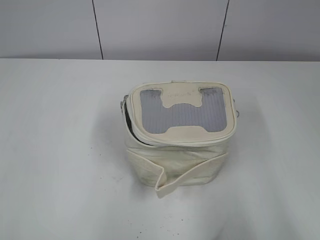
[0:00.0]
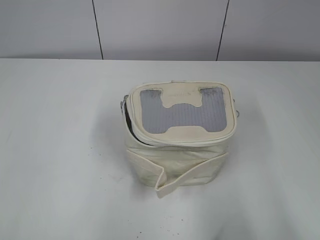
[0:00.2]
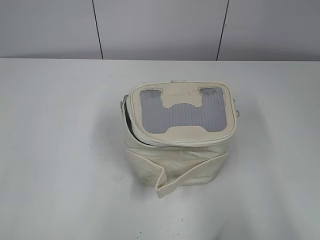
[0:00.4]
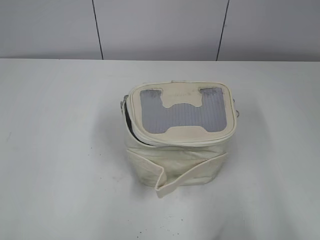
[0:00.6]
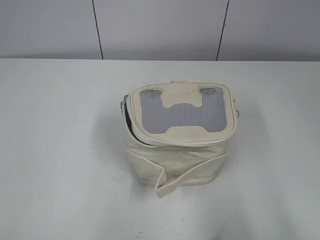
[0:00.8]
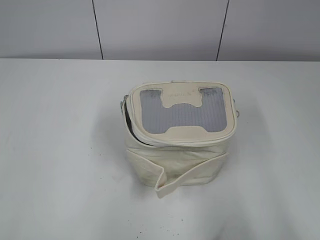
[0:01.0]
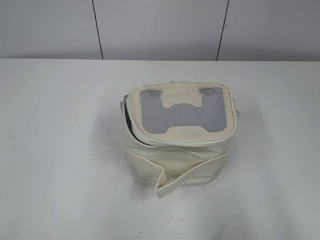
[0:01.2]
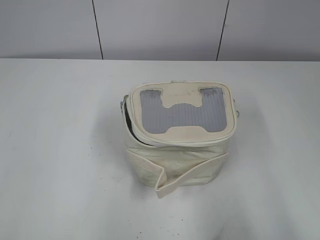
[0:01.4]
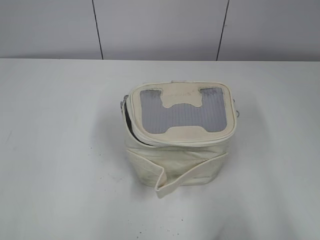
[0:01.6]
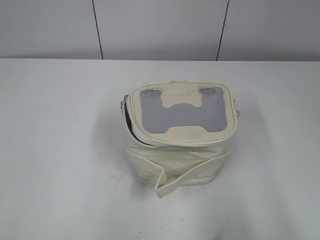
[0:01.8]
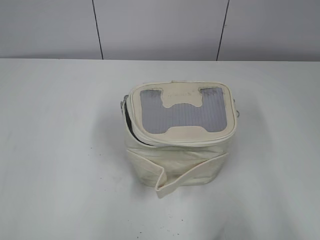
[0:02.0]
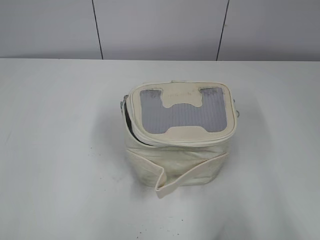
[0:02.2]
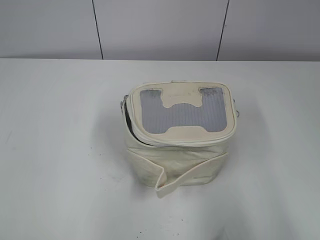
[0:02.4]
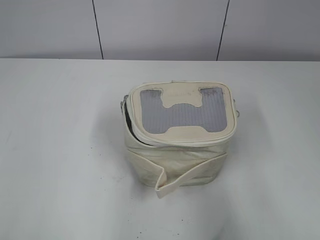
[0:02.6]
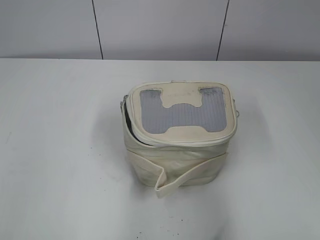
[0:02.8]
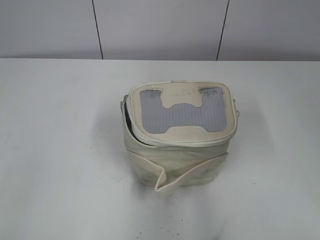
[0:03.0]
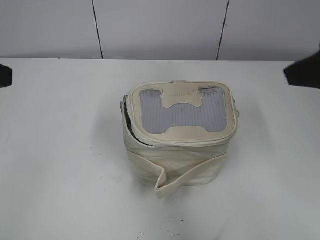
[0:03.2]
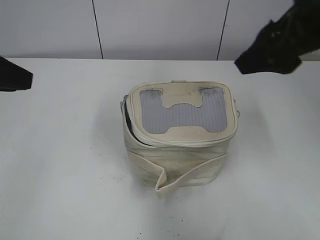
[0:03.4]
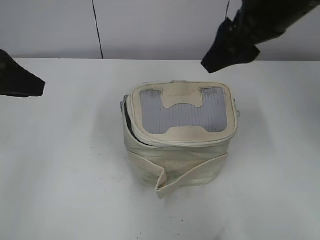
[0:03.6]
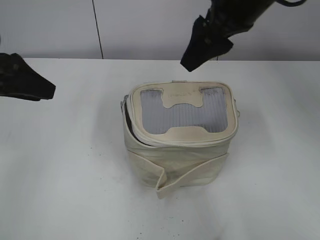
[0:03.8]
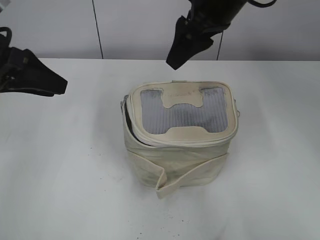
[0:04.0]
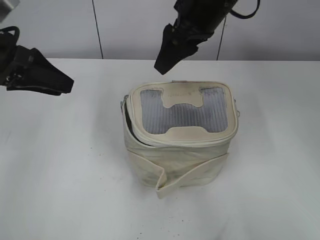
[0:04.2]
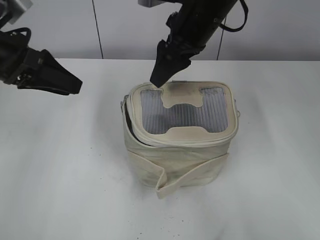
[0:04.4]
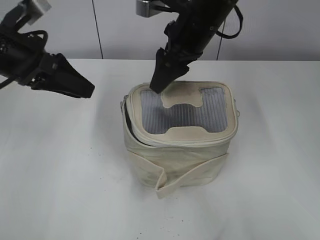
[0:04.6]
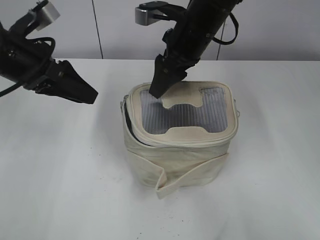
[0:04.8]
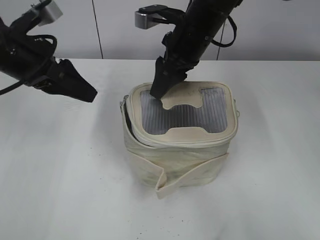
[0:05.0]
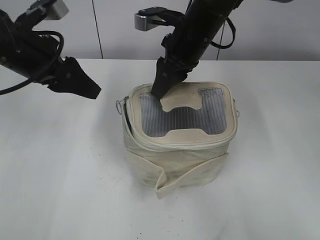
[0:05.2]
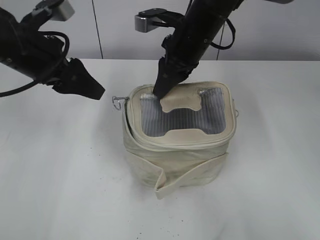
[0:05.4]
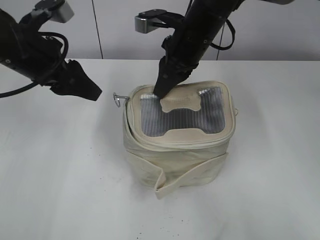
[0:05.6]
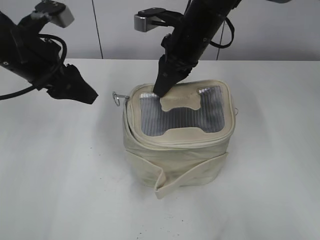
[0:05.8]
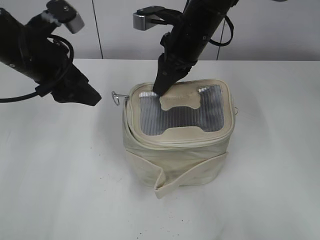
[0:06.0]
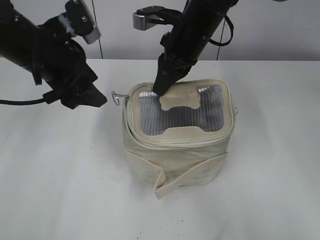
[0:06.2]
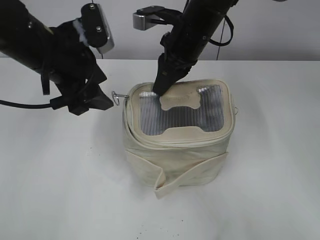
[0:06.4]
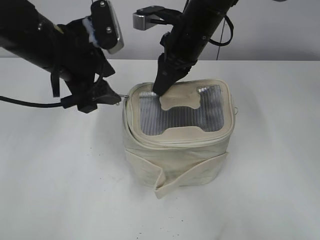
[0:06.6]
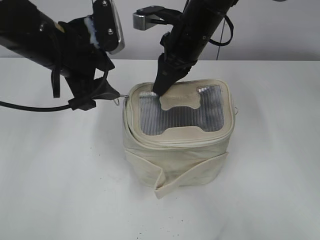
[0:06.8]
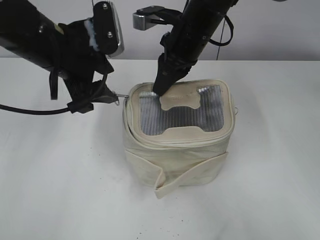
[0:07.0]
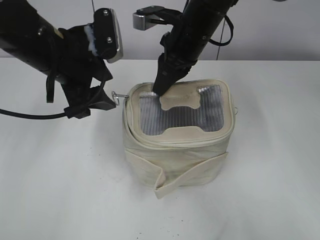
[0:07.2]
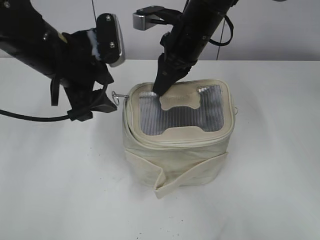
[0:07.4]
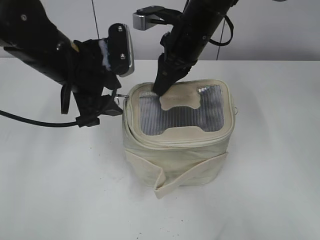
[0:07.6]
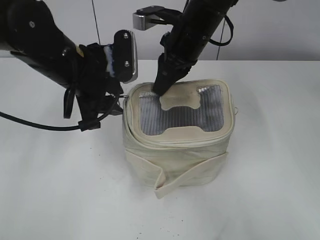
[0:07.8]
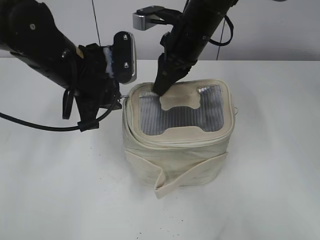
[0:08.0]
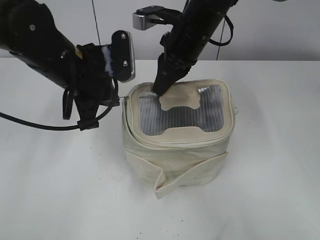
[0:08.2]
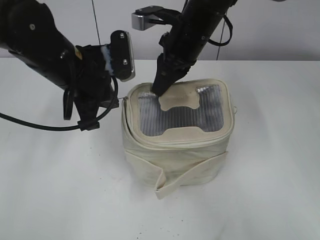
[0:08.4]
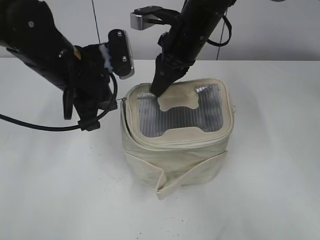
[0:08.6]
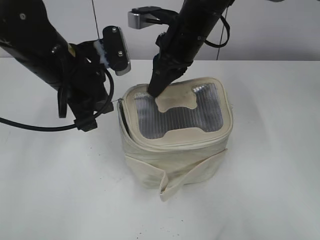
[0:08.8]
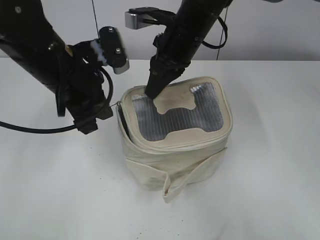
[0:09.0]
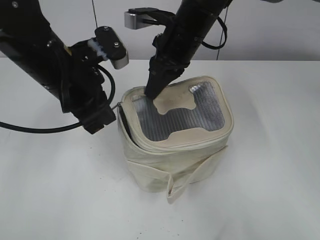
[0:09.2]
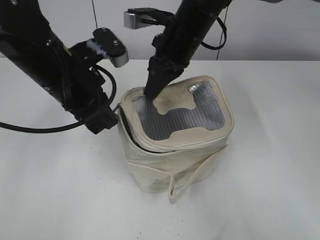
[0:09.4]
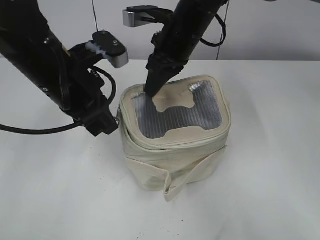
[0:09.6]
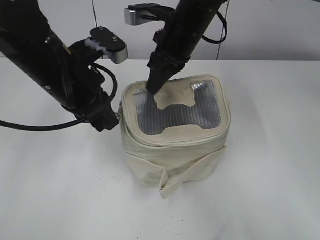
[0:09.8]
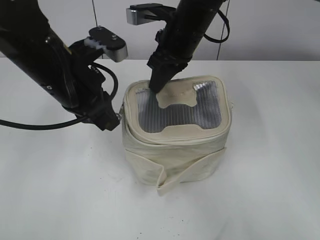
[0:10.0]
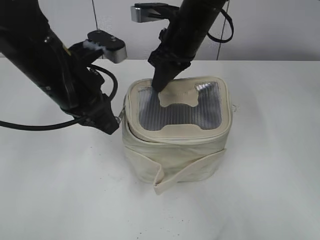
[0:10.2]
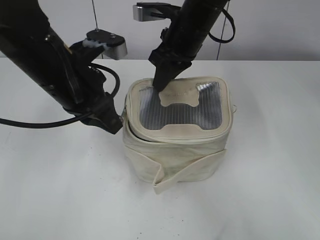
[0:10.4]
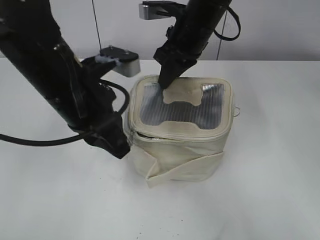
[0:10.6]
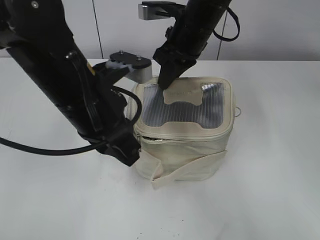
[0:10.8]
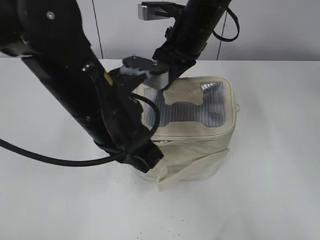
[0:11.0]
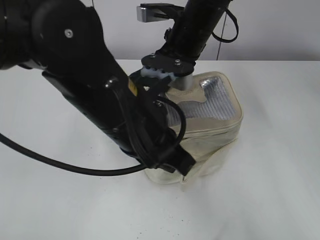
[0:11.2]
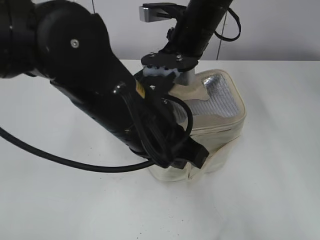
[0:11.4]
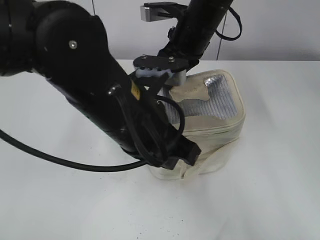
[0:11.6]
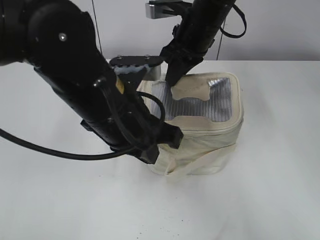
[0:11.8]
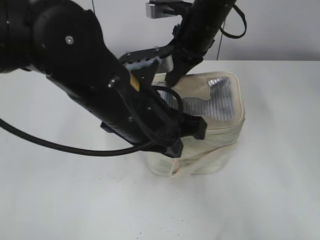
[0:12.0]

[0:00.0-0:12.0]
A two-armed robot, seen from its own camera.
0:01.6 to 0:03.0: The left gripper travels forward by approximately 15 cm. The right gripper shifts roughly 15 cm forward and upward.
0:03.0 to 0:04.4: The right gripper travels forward and to the left by about 30 cm, while the left gripper is displaced forward by roughly 15 cm.
0:04.4 to 0:06.0: The right gripper closes its fingers.
0:06.0 to 0:07.6: The left gripper heads to the right, covering approximately 5 cm.
0:07.6 to 0:09.0: The left gripper closes its fingers.
0:10.4 to 0:12.0: The left gripper goes approximately 10 cm to the right and backward.

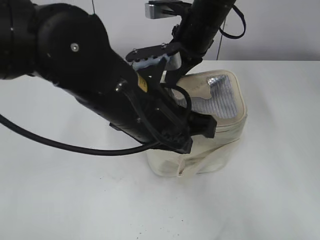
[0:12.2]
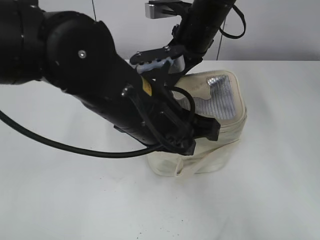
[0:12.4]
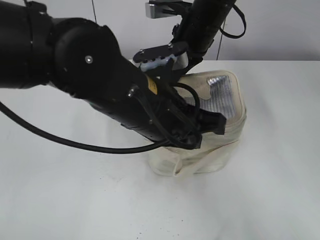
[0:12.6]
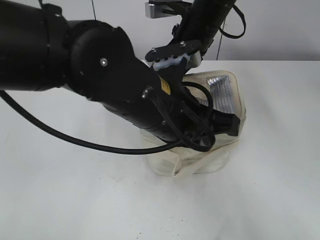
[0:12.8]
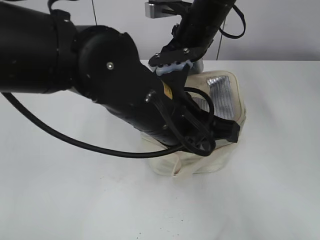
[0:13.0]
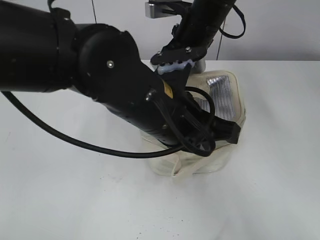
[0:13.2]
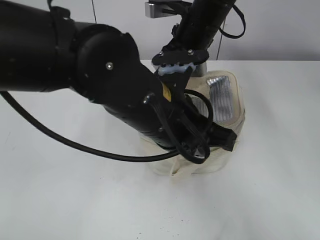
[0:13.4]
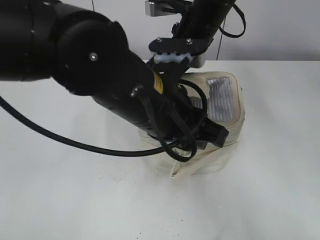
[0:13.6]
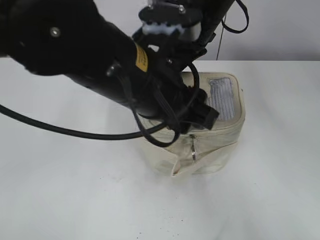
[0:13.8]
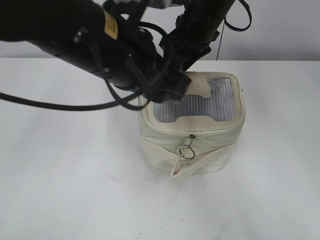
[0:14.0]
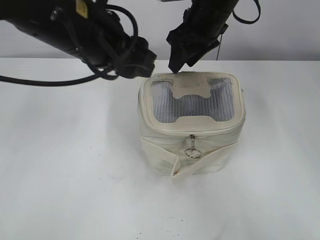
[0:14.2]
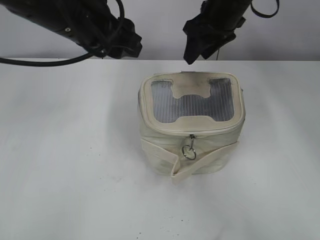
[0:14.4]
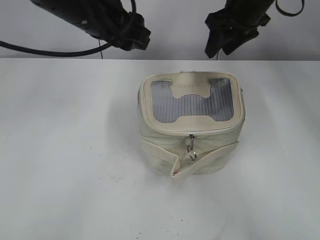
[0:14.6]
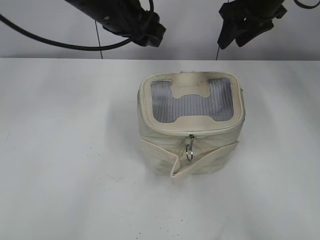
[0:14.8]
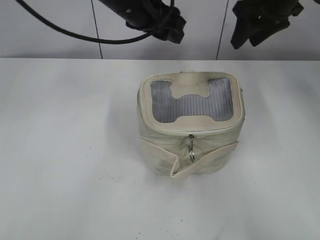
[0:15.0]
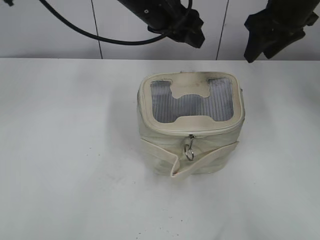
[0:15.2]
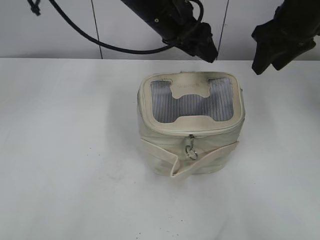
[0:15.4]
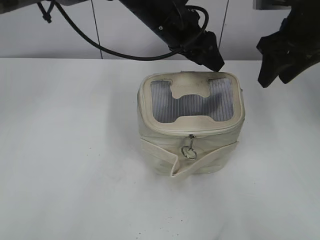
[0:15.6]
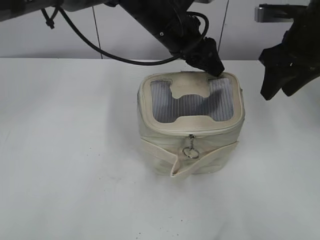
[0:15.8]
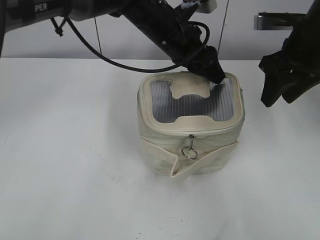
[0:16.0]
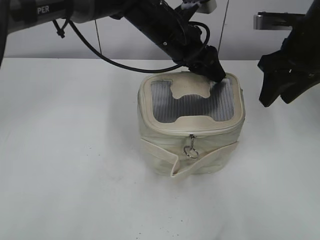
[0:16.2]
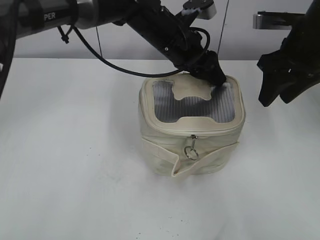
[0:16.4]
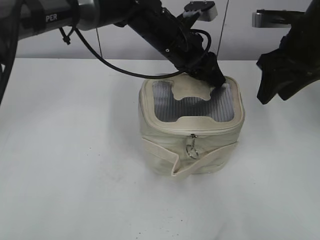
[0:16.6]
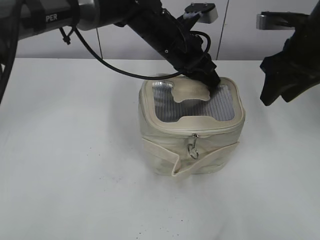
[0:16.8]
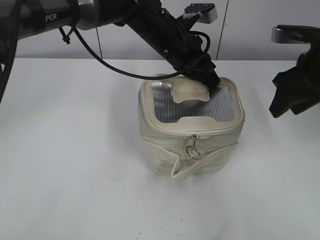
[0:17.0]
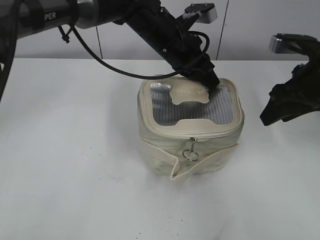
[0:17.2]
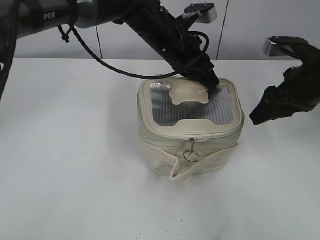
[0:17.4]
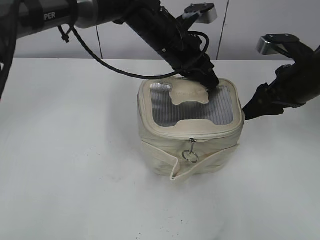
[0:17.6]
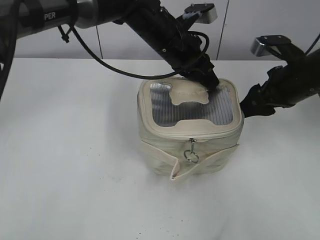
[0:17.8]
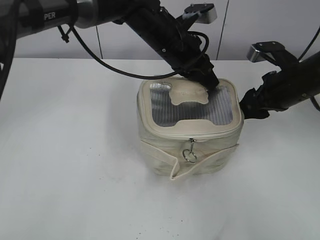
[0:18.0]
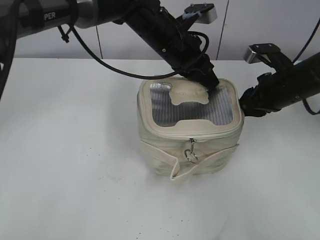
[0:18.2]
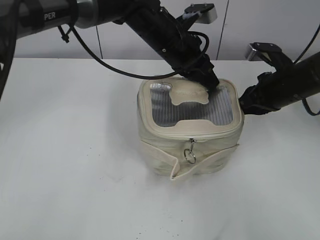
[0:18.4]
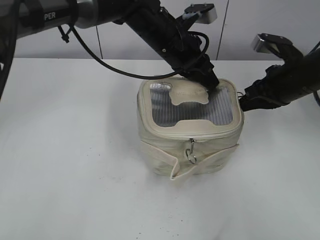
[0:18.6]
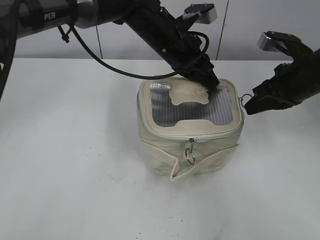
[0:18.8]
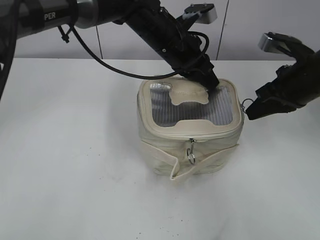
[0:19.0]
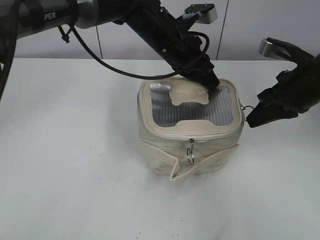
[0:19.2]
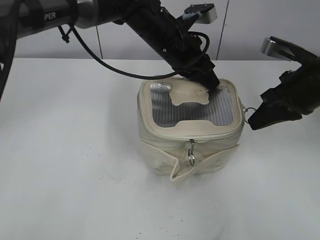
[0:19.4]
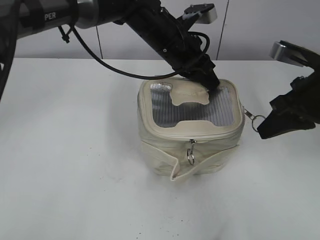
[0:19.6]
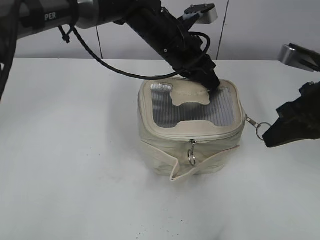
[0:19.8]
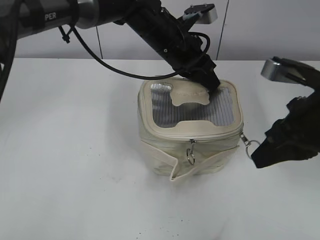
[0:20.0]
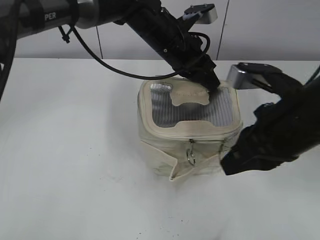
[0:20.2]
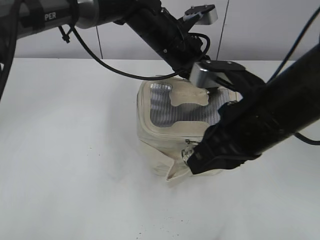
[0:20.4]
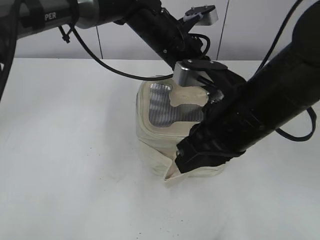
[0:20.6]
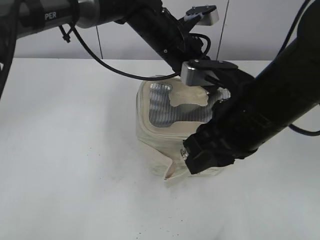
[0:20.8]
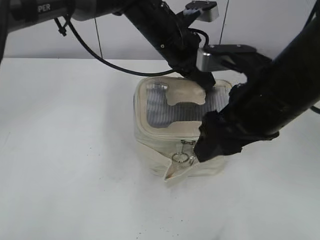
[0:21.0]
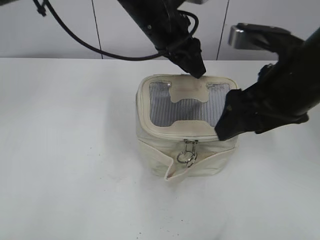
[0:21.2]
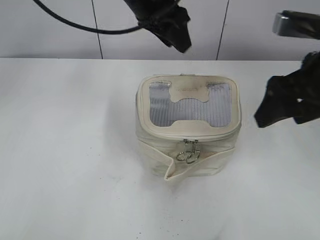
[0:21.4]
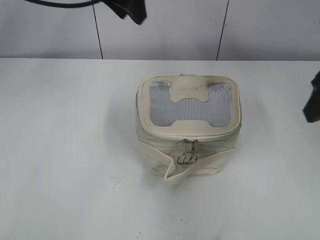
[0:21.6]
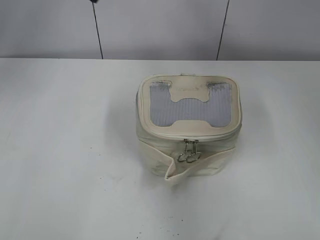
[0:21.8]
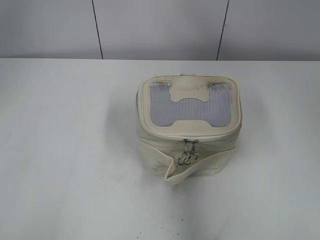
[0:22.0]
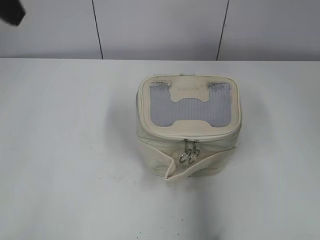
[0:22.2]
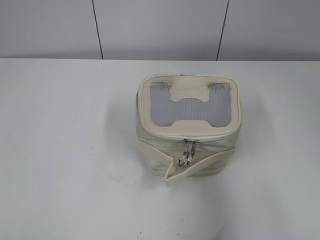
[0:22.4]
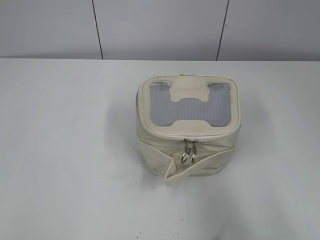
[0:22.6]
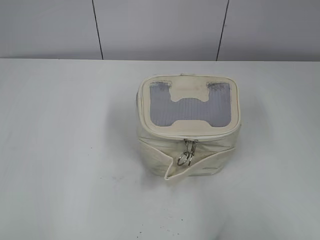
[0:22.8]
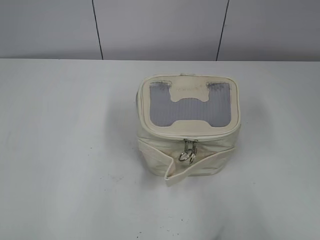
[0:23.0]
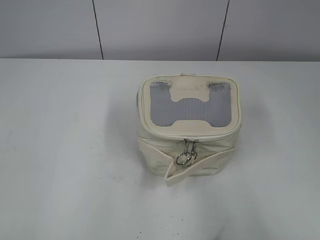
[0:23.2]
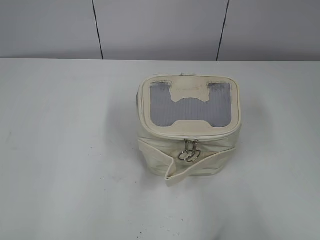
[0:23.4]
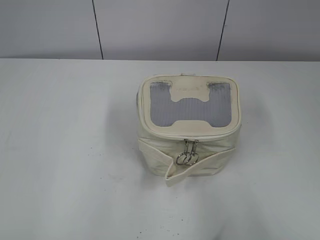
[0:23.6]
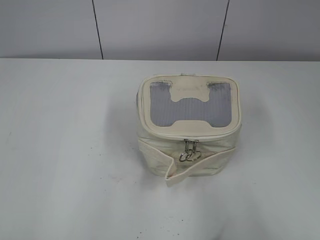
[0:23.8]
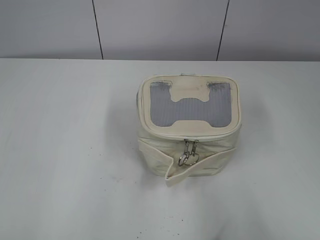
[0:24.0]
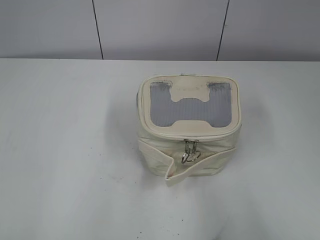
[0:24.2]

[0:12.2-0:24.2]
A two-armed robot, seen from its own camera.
Step, 0:13.6 to 0:14.2: Hold the bag with your right hand.
Step, 0:14.4 to 0:20.8: Zip up the bag with your right hand.
Step, 0:21.0 to 0:21.2: Hold the bag with your left hand.
0:12.2 to 0:13.8: The right gripper opens, while the left gripper opens.
0:13.8 to 0:15.2: The left gripper shifts some 20 cm forward. The right gripper travels to the right by about 15 cm.
0:15.2 to 0:16.6: The right gripper moves backward, roughly 5 cm, while the left gripper moves downward, some 5 cm.
0:16.6 to 0:18.2: The left gripper closes up. The right gripper moves downward, approximately 10 cm, and closes up.
0:18.2 to 0:19.8: The right gripper is displaced backward and upward by approximately 10 cm, and closes.
0:19.8 to 0:21.2: The left gripper opens its fingers. Meanwhile the right gripper travels to the left by some 10 cm, and opens its fingers.
0:21.2 to 0:22.6: The right gripper shifts some 25 cm backward and to the right. The left gripper heads to the left and backward, covering some 40 cm.
0:22.6 to 0:24.2: The left gripper moves backward, downward and to the left, about 15 cm.
